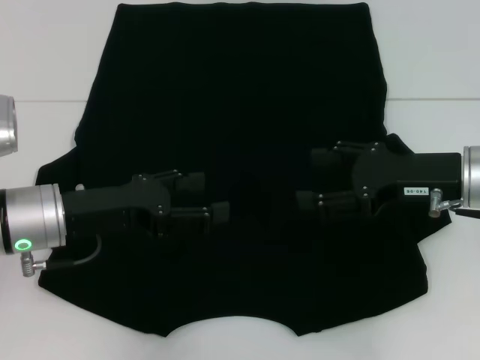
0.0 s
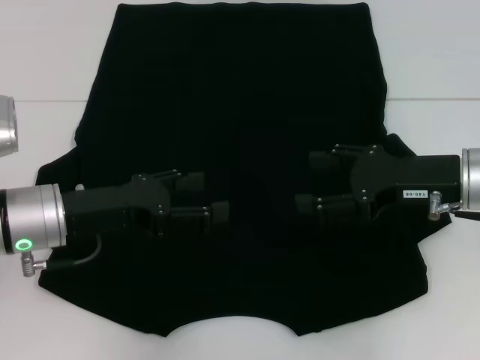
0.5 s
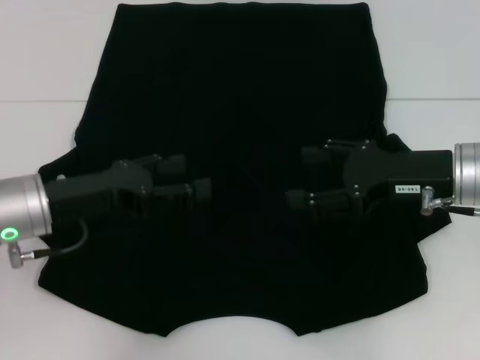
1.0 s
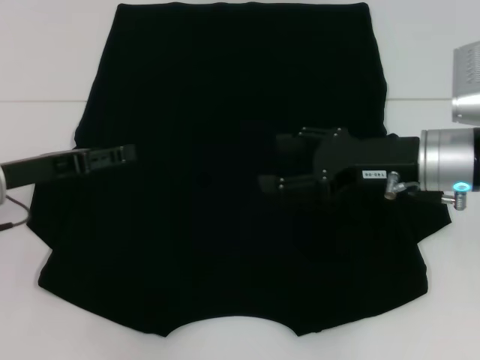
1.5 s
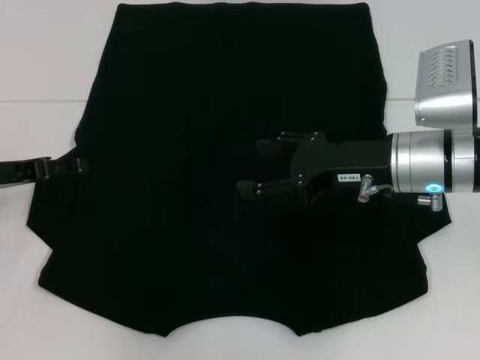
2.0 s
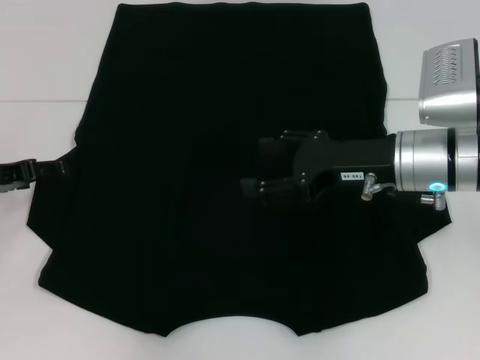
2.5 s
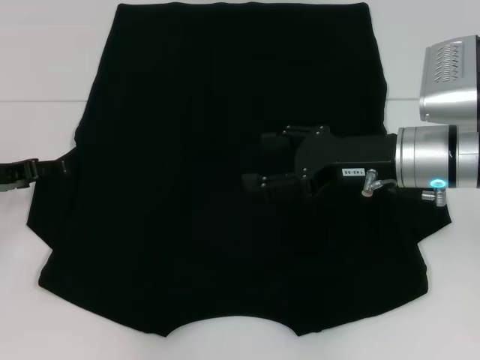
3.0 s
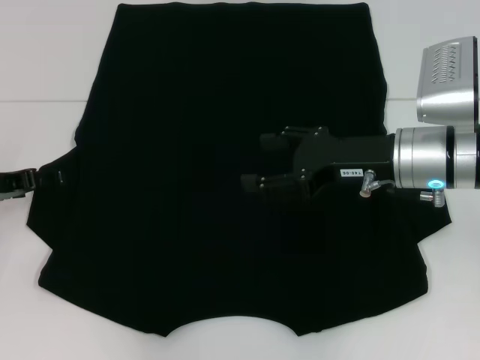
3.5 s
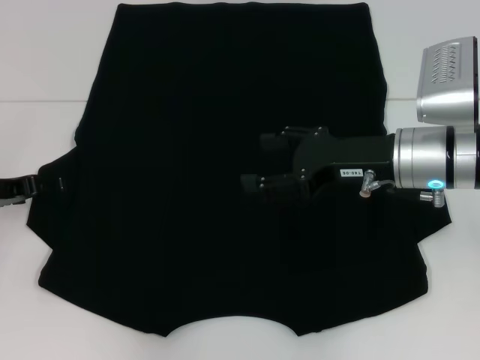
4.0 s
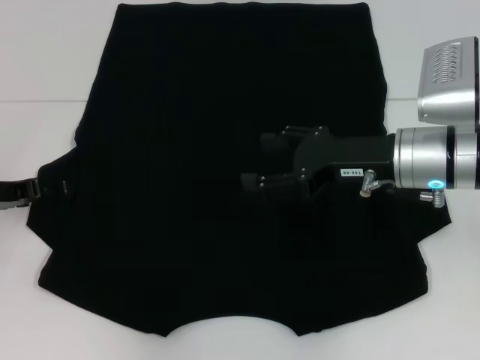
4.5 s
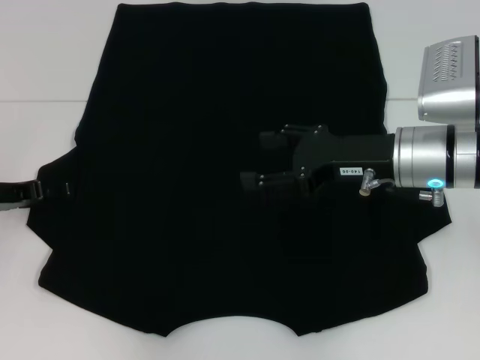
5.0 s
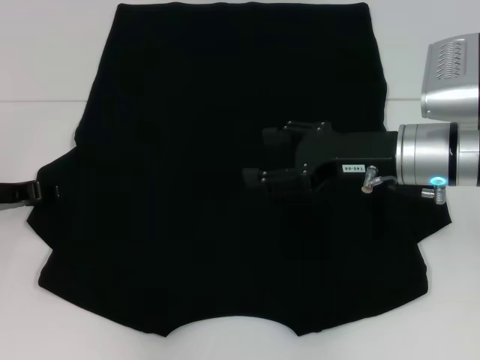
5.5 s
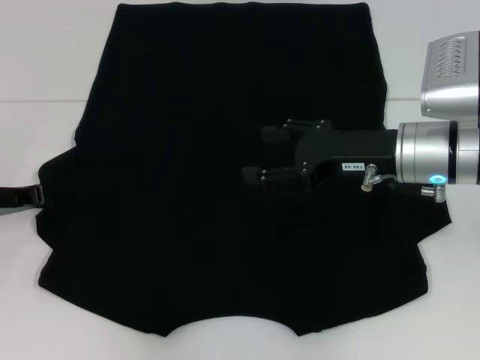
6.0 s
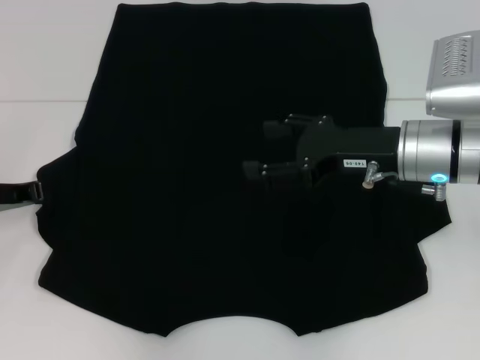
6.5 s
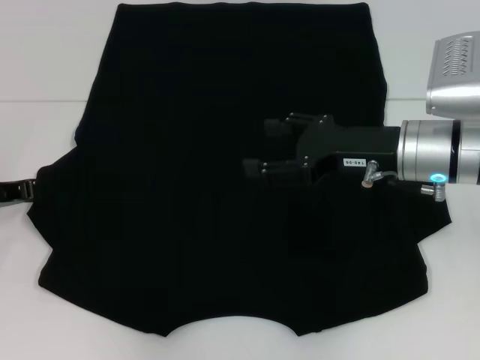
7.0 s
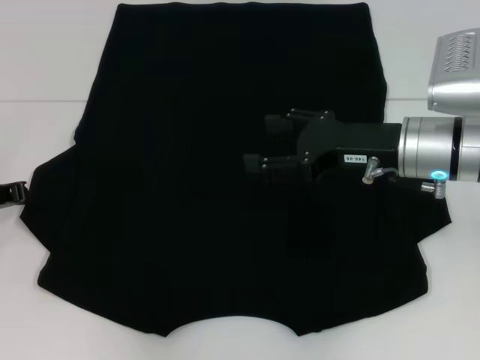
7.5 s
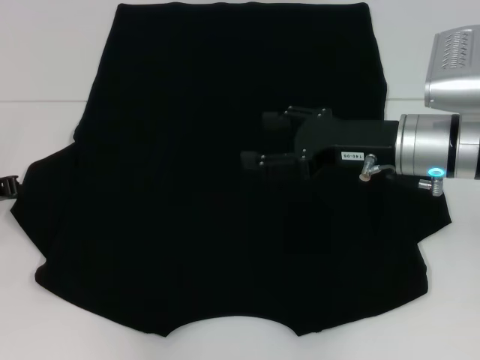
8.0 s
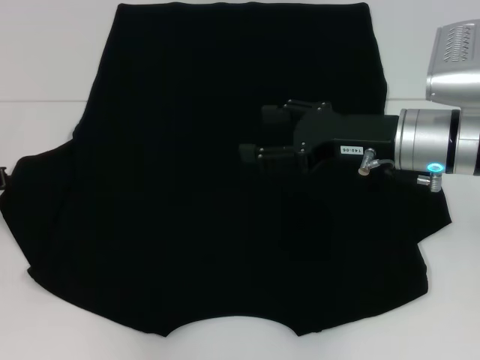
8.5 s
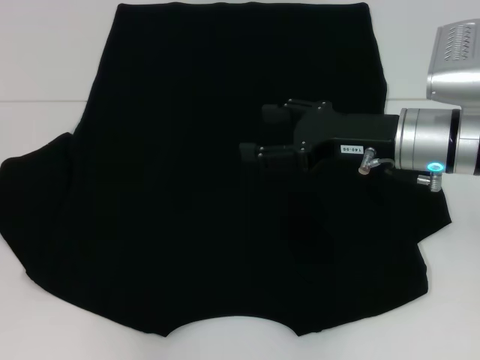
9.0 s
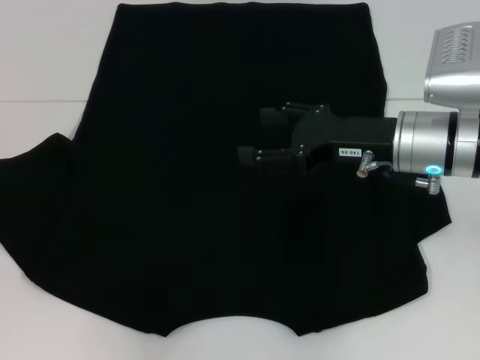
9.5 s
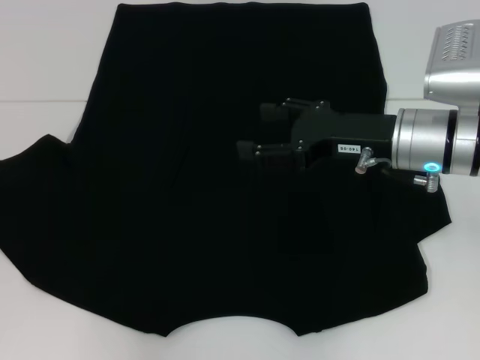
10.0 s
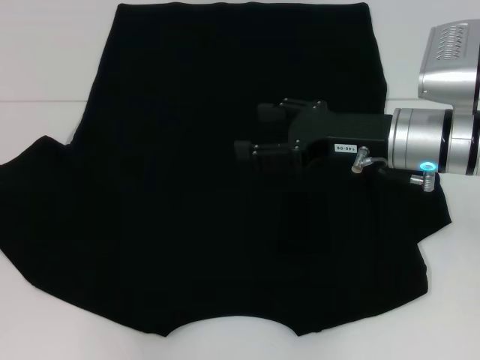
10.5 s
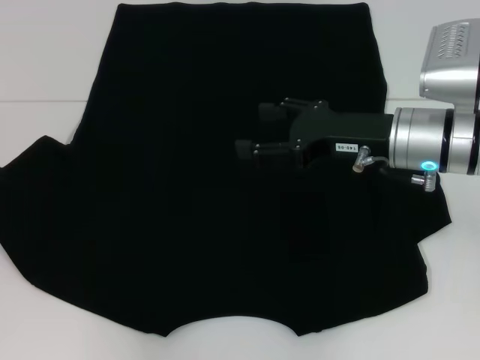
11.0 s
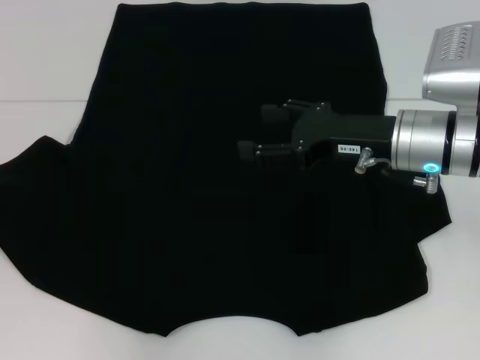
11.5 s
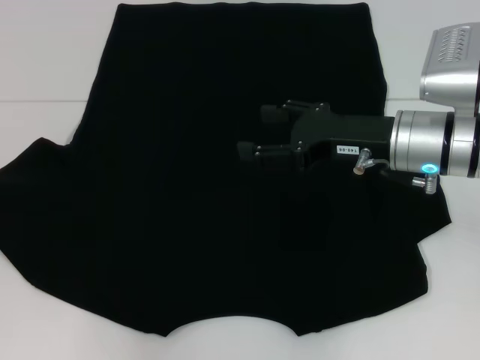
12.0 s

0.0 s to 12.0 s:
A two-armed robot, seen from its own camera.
0.0 to 2.0 s: The left gripper goes some 10 cm to the left, while the right gripper goes approximately 5 cm to the left.
2.0 to 4.0 s: The grippers move only a little.
4.0 to 6.0 s: The left gripper closes up.
6.0 to 10.0 s: The grippers stay close to where they were, moving slightly.
10.0 to 12.0 s: Both grippers stay about where they are.

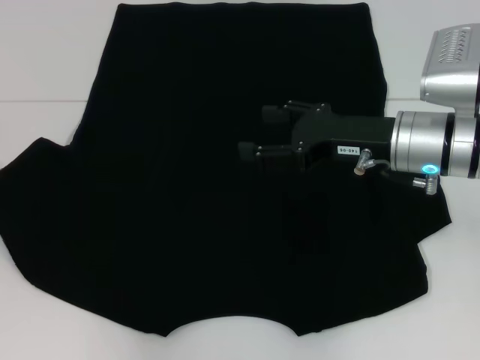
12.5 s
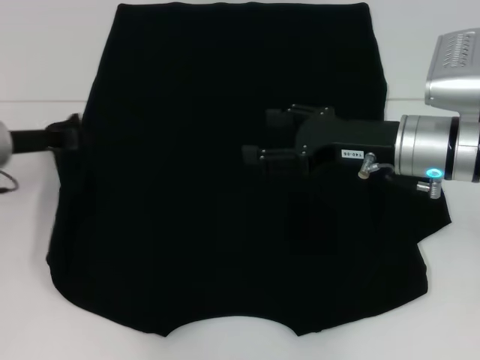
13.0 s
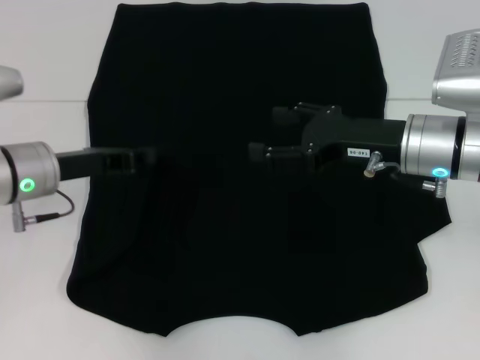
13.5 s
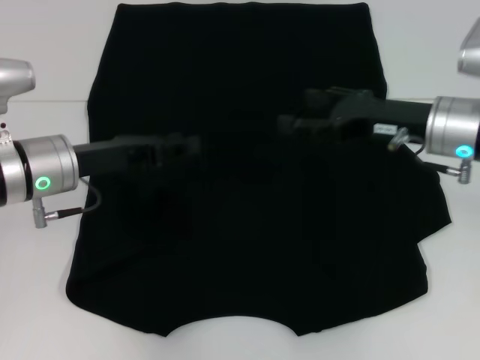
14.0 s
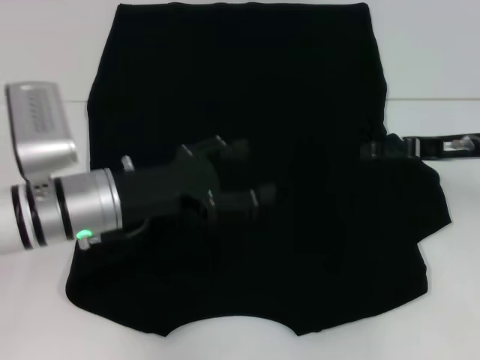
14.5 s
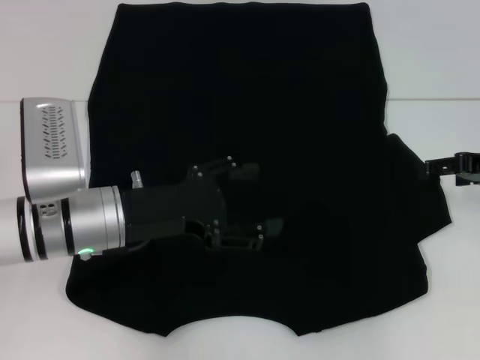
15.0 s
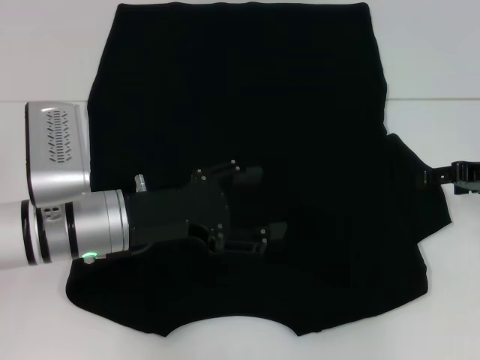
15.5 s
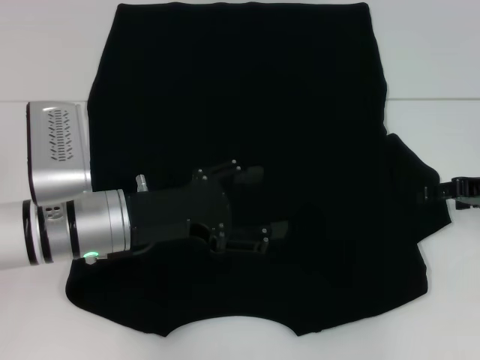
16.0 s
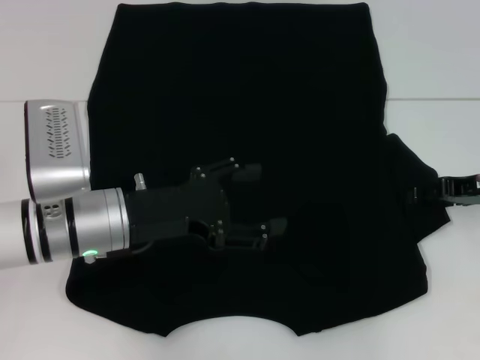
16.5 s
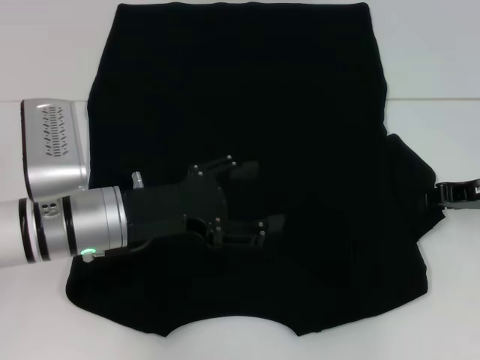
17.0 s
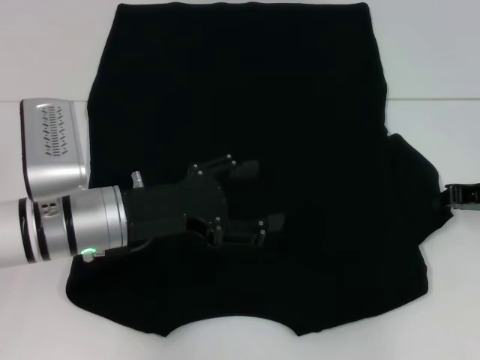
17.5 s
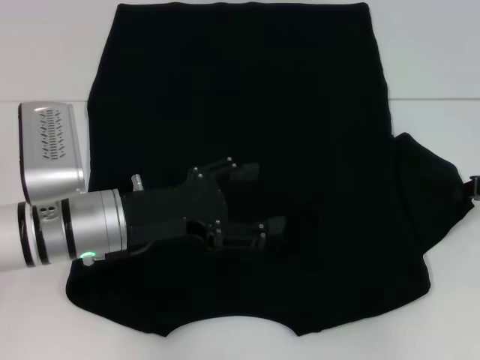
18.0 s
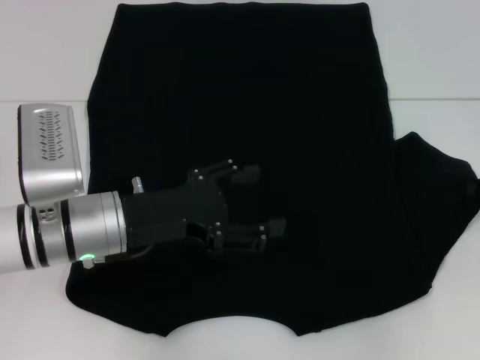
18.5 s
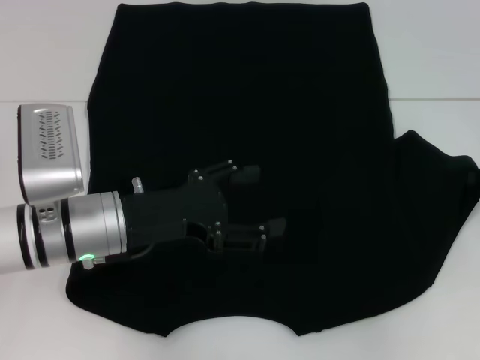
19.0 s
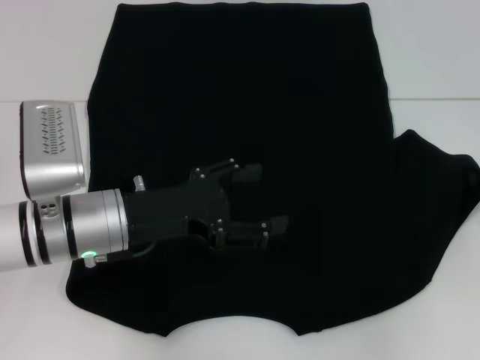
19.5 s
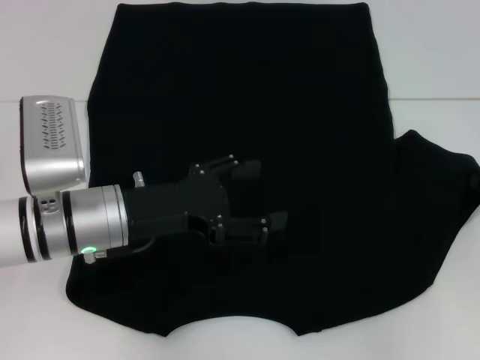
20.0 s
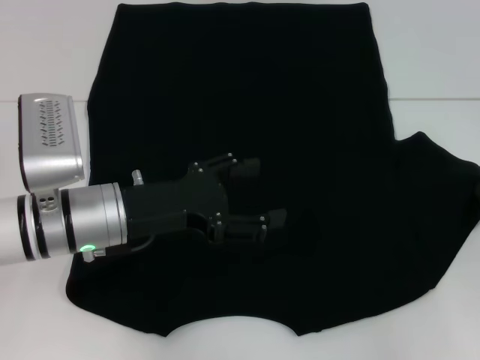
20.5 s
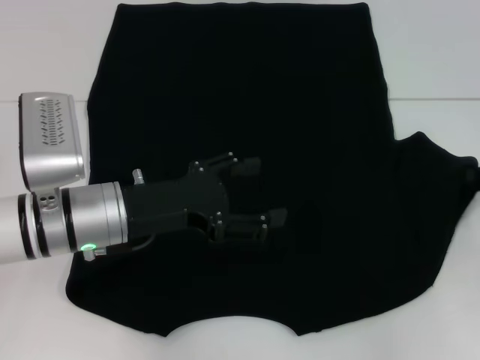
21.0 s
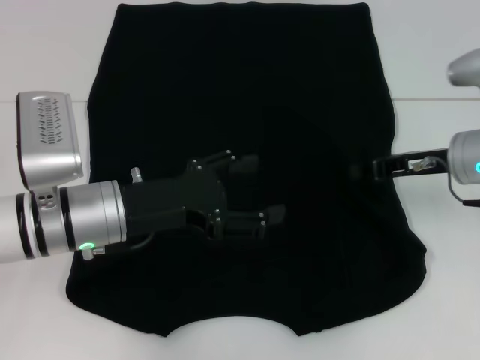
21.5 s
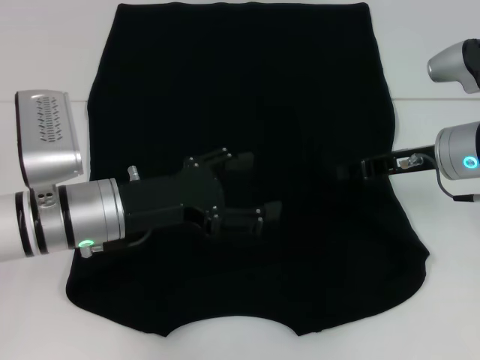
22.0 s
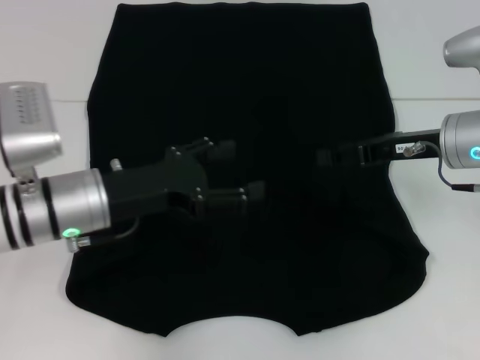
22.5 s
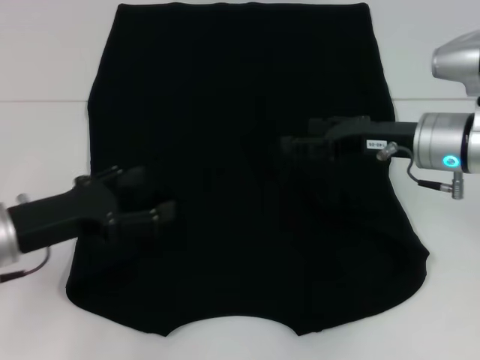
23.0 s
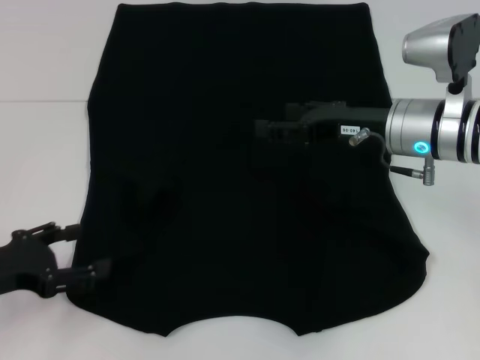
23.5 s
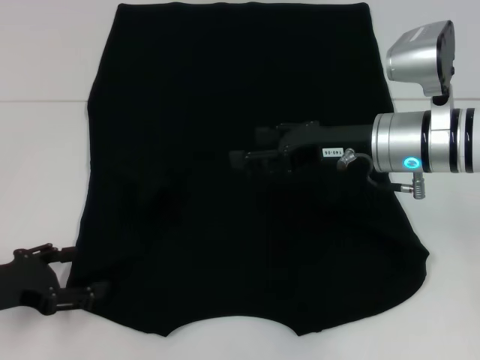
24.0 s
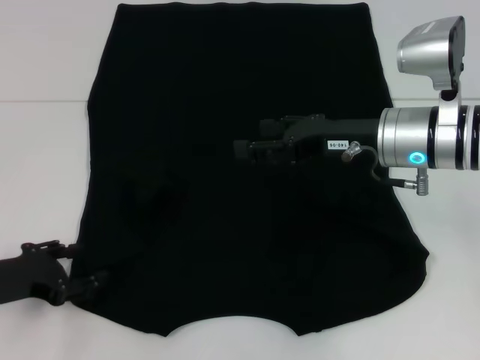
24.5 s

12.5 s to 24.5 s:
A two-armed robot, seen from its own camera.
Step, 14.0 to 21.5 s: Fold the bottom right sleeve with your right hand.
12.5 to 14.5 s: The left gripper shifts some 20 cm to the right, and opens up. Meanwhile the right gripper heads to the right, covering some 10 cm.
14.5 to 16.5 s: The grippers make only small movements.
16.5 to 18.5 s: The right gripper shifts some 5 cm to the right, and closes.
18.5 to 20.5 s: The grippers stay close to where they were, moving slightly.
20.5 to 22.5 s: The right gripper travels to the left and upward by approximately 15 cm, and opens up.
22.5 to 24.5 s: The right gripper goes roughly 5 cm to the left, and opens up; the left gripper goes approximately 15 cm to the left, backward and downward.

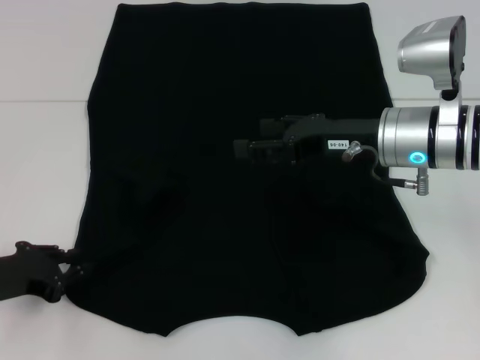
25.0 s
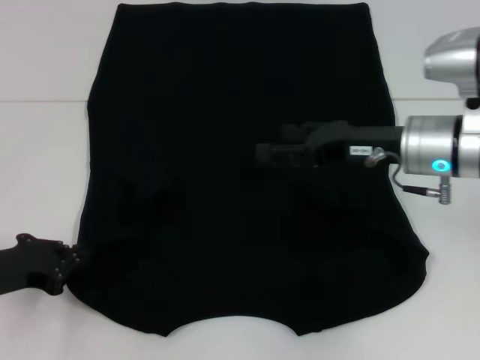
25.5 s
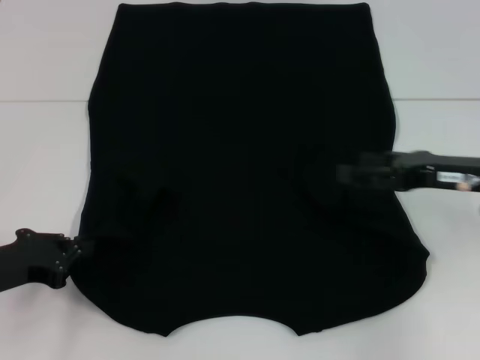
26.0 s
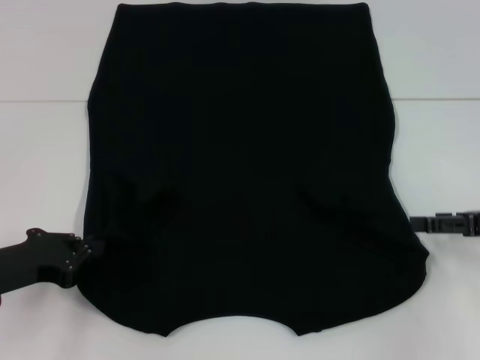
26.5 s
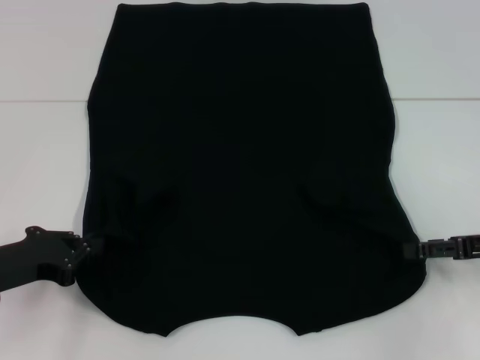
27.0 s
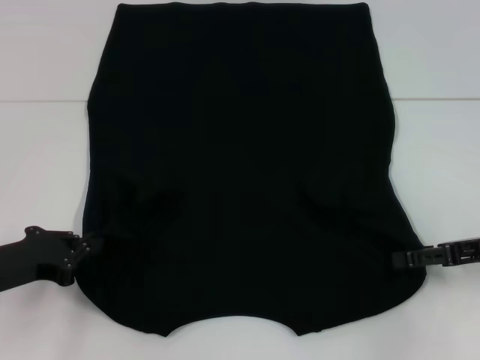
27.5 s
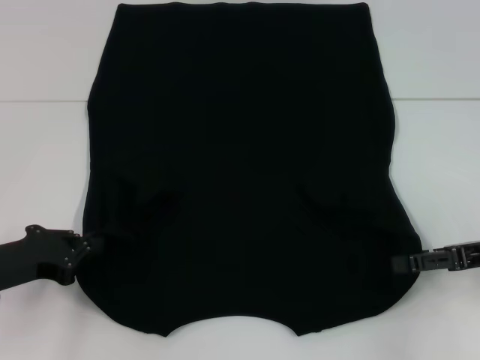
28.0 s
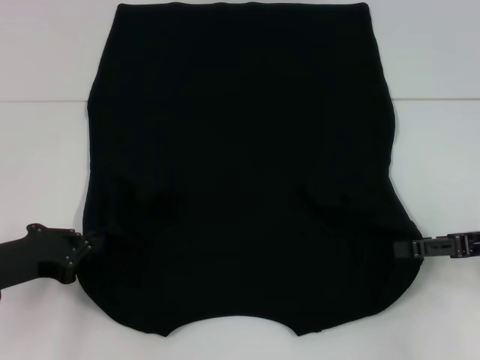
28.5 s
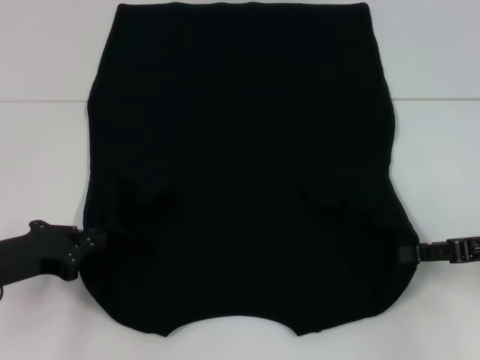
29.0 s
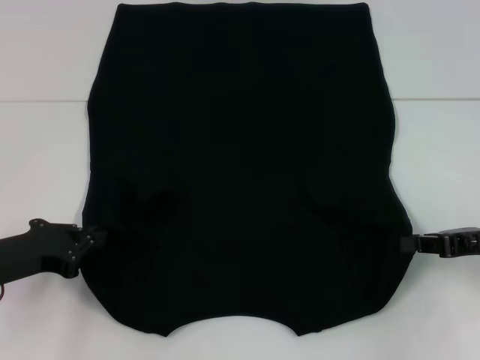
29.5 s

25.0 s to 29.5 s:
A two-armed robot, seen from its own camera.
Step, 25.0 to 28.0 s: Grab the bottom right corner with your right hand.
25.0 to 27.0 s: The left gripper closes its fingers; the right gripper shifts about 20 cm to the right and backward.
27.0 to 29.5 s: The right gripper closes.
